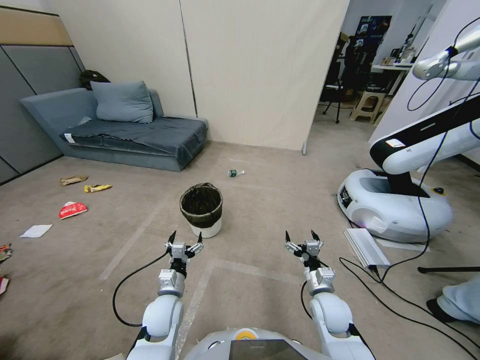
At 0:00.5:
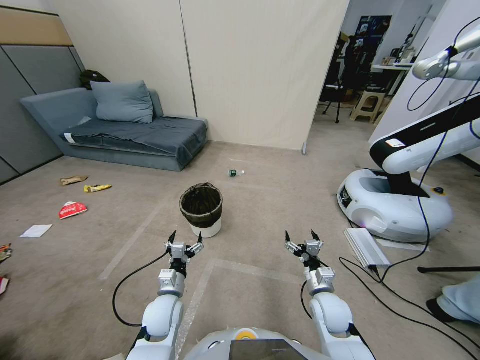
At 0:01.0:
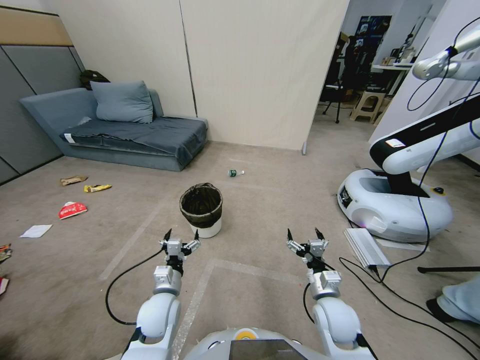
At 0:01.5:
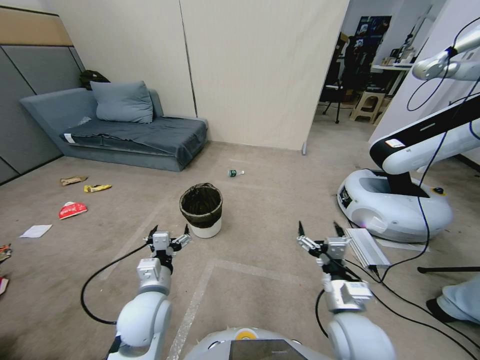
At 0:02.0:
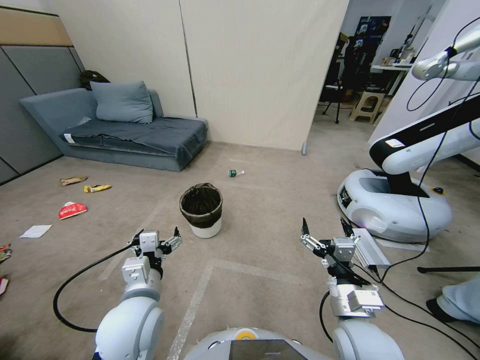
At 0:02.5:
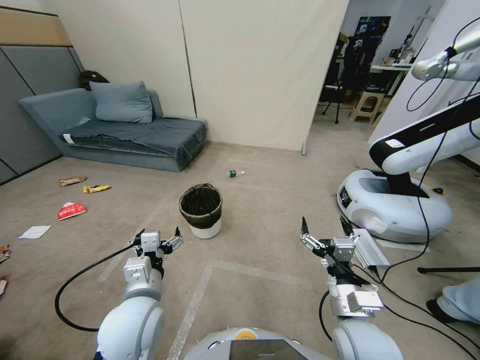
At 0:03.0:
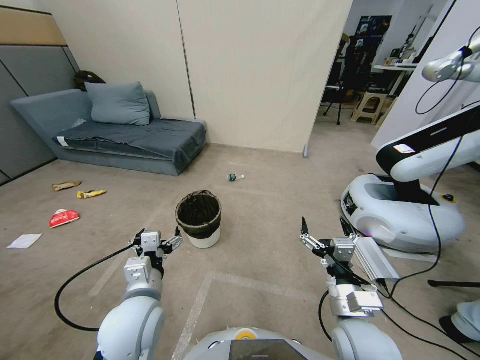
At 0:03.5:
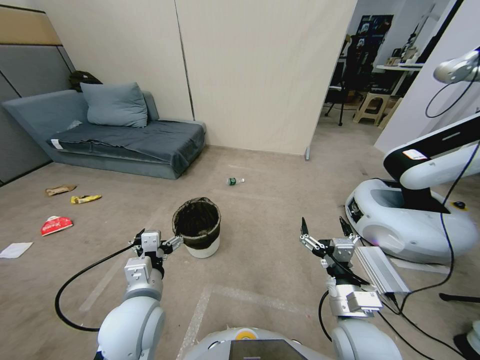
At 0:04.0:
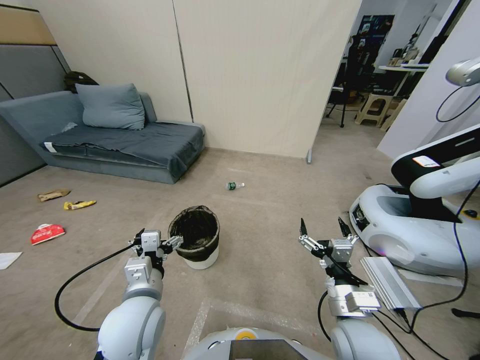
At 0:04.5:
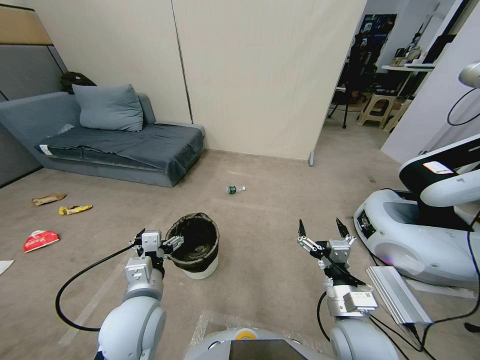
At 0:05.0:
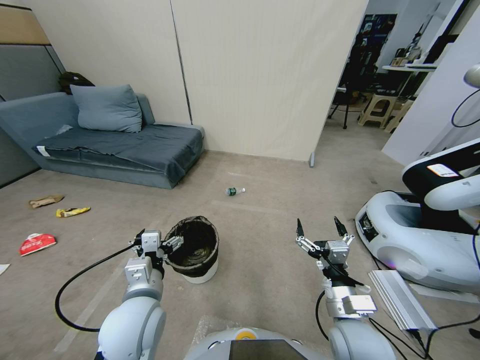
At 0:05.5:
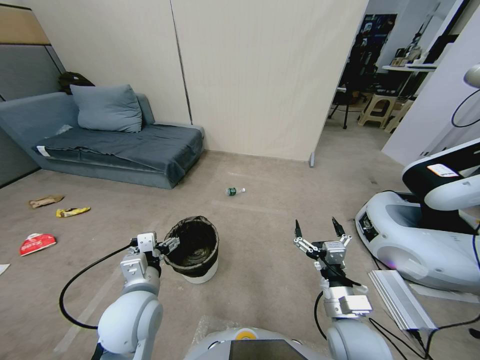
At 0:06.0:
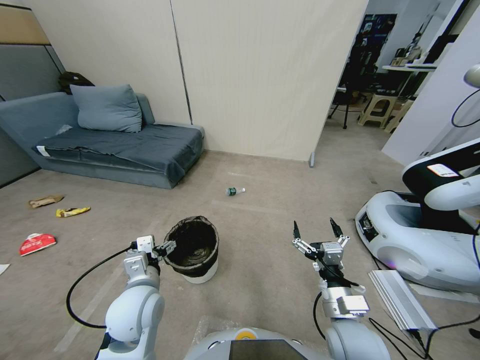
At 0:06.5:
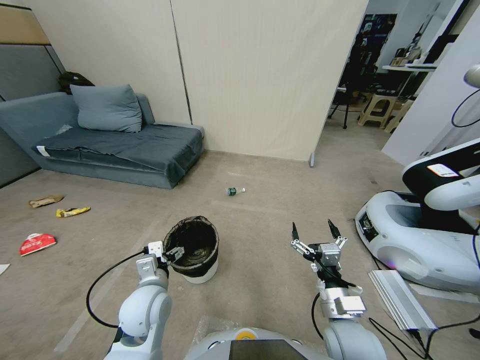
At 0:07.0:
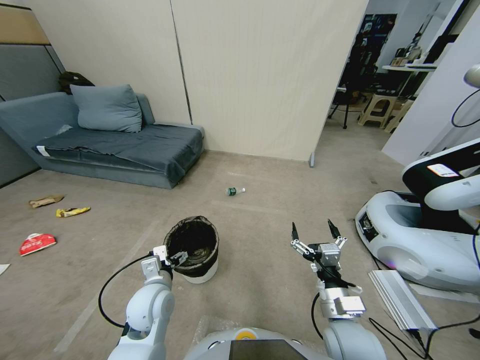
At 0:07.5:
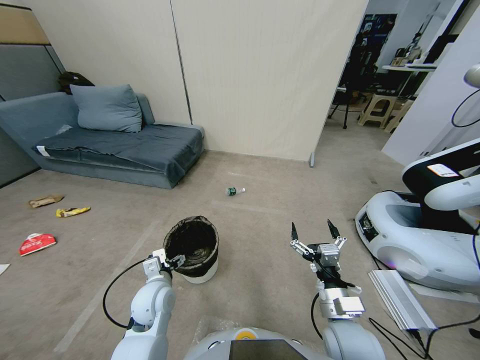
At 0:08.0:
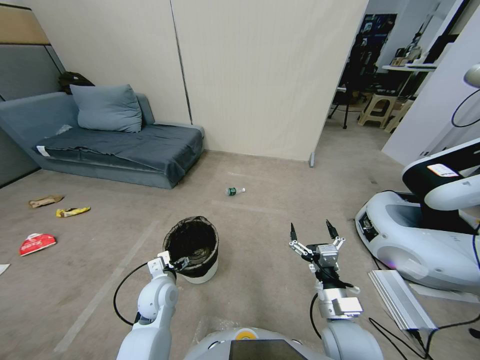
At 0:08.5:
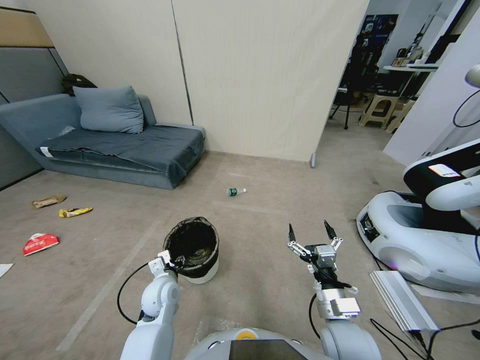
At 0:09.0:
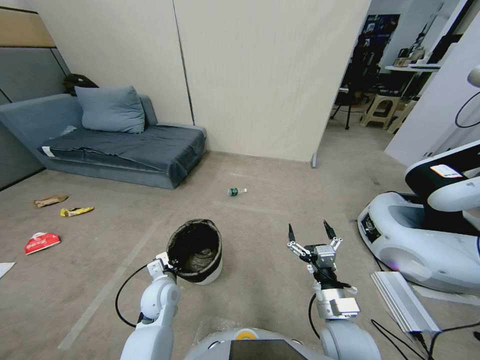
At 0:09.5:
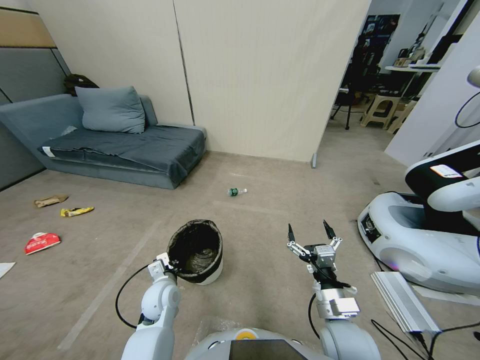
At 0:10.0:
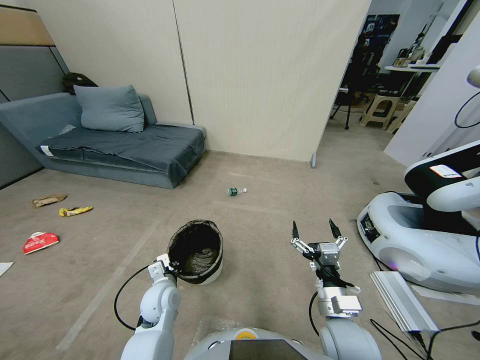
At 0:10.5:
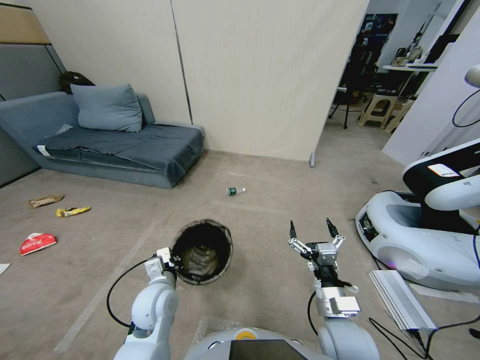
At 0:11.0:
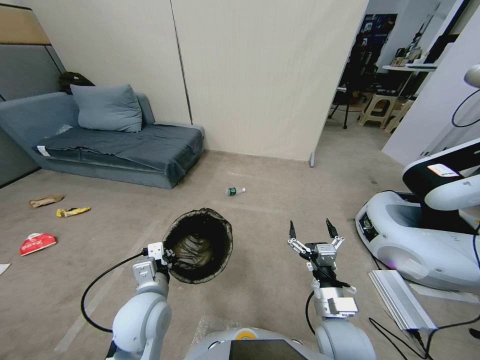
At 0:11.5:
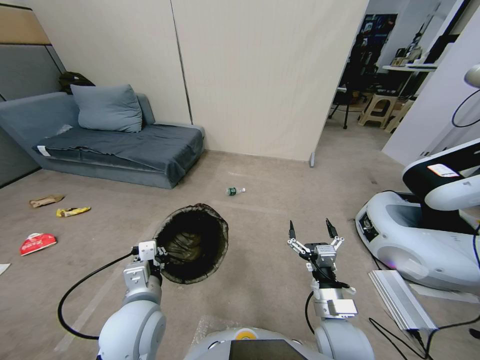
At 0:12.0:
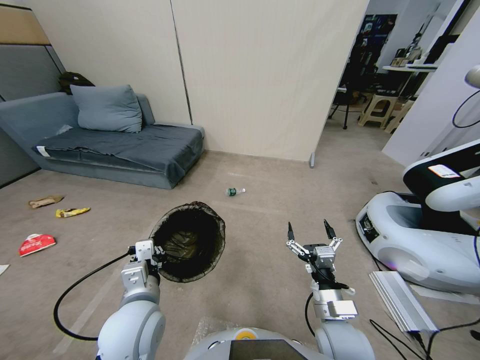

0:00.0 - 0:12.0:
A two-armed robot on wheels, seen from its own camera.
Task of the whole recording: Pick up the trash bin, then pick up the garbage from the floor and place it into the trash bin.
0:04.0 - 0:06.0: The left gripper shifts by roughly 5 cm.
0:06.0 - 0:08.0: The left gripper heads downward, covering approximately 10 cm.
0:08.0 - 0:10.0: The left gripper closes.
0:10.0 - 0:12.0: The left gripper travels upward and backward by some 15 cm.

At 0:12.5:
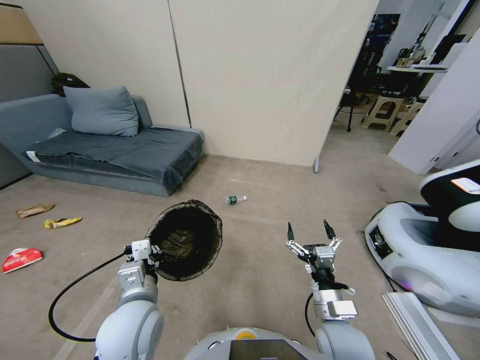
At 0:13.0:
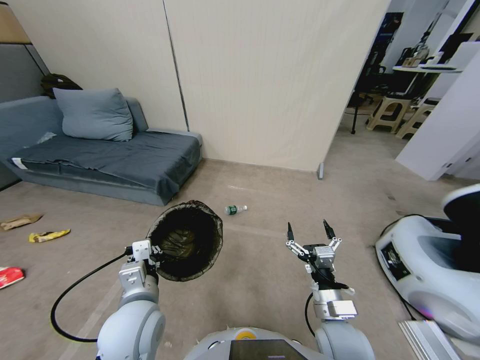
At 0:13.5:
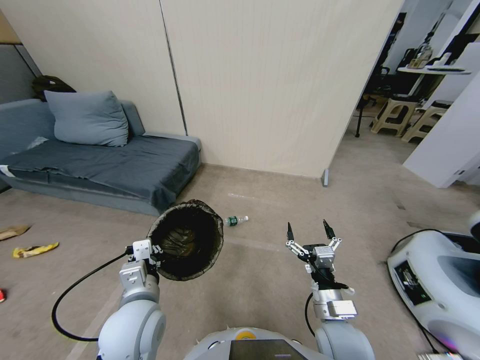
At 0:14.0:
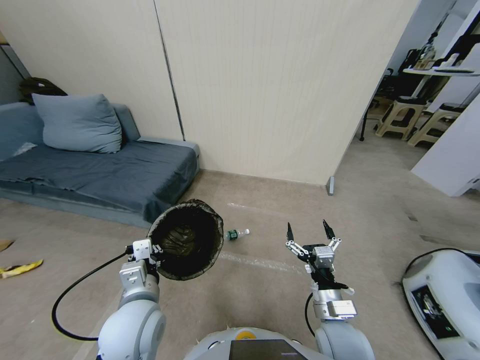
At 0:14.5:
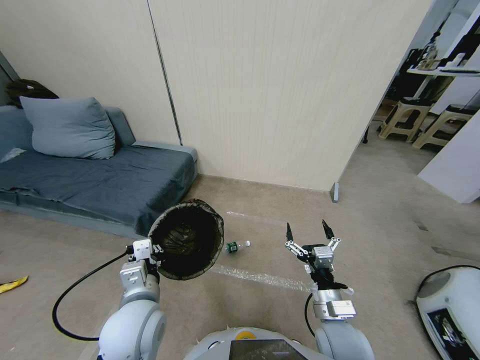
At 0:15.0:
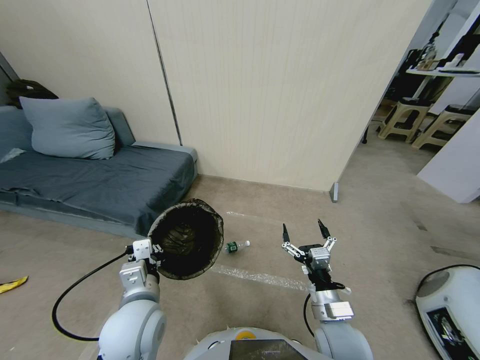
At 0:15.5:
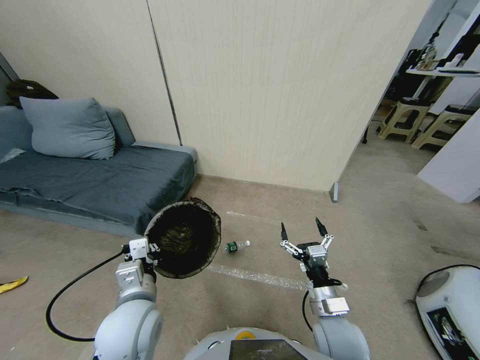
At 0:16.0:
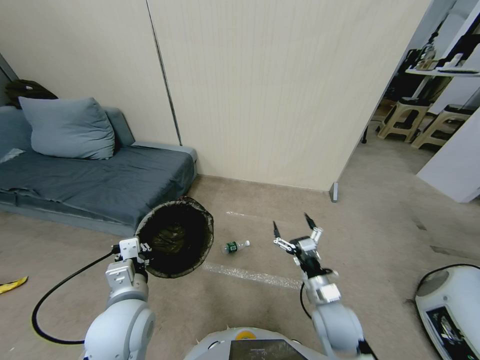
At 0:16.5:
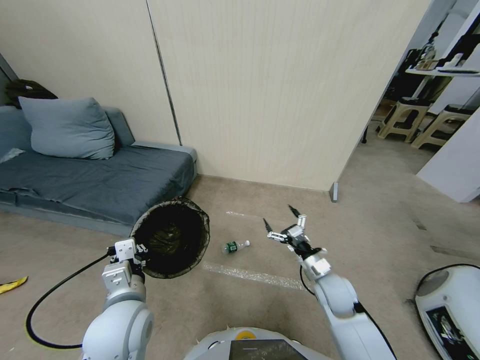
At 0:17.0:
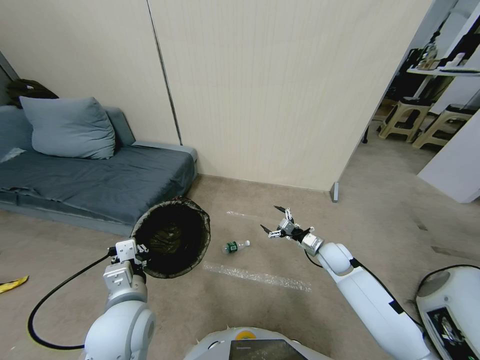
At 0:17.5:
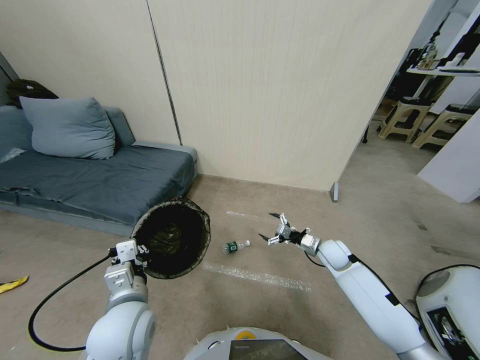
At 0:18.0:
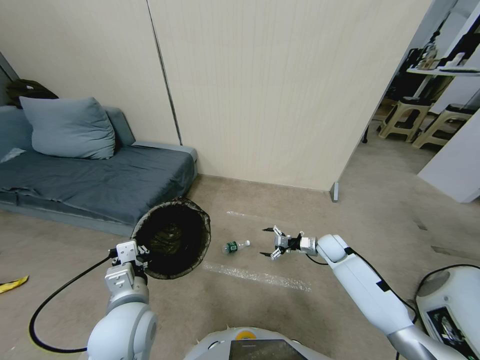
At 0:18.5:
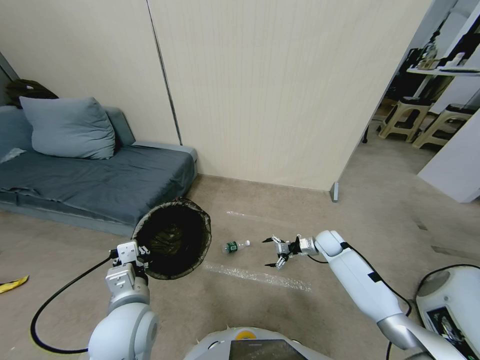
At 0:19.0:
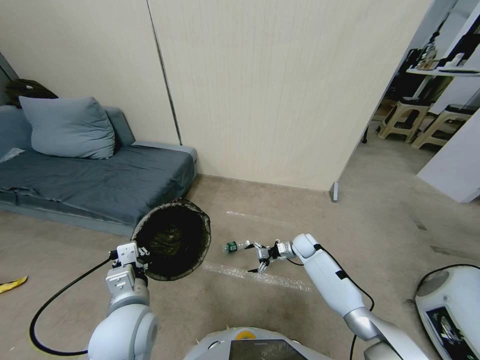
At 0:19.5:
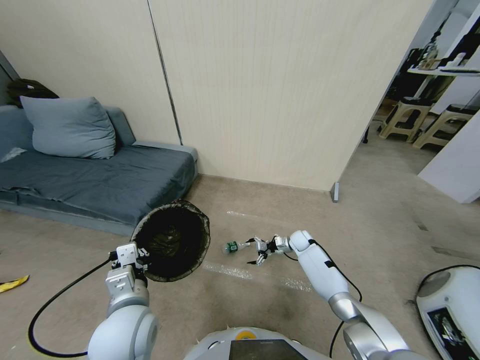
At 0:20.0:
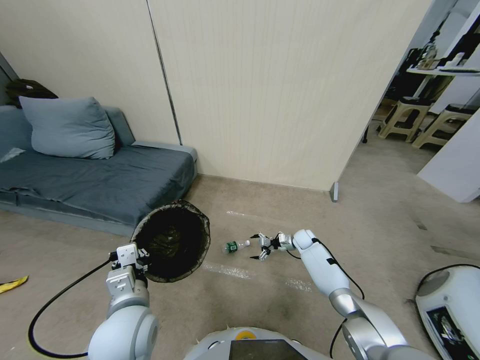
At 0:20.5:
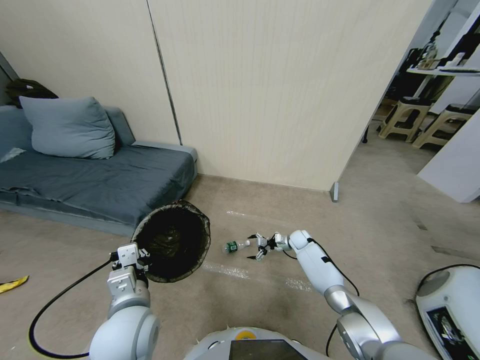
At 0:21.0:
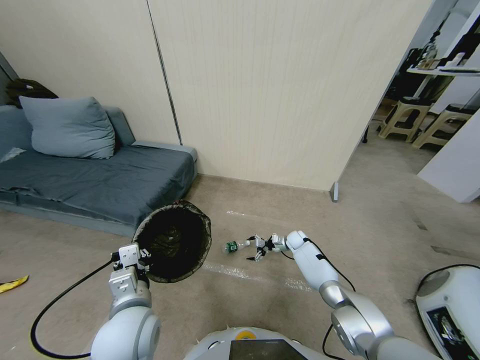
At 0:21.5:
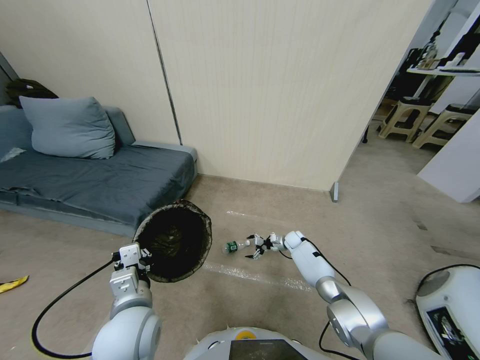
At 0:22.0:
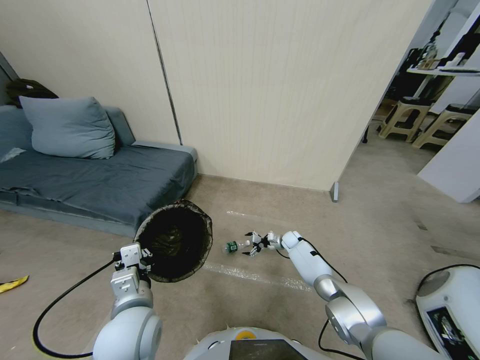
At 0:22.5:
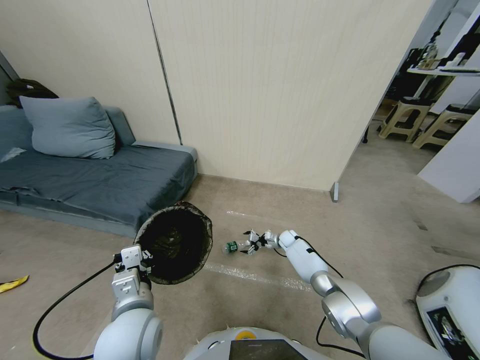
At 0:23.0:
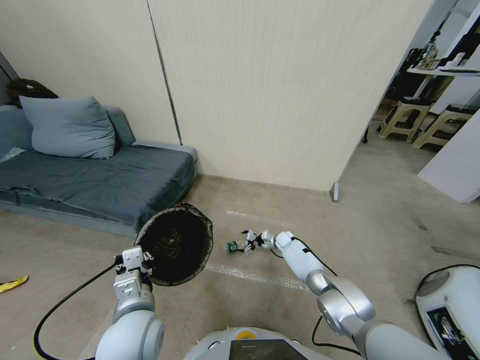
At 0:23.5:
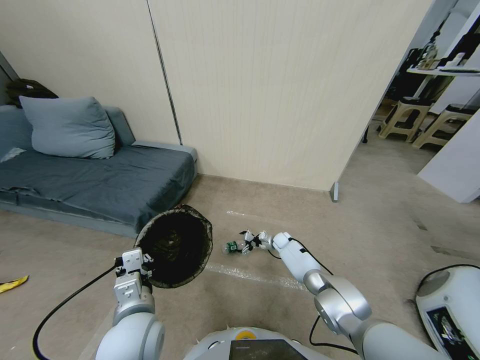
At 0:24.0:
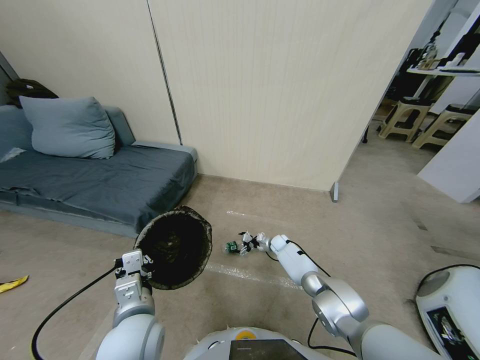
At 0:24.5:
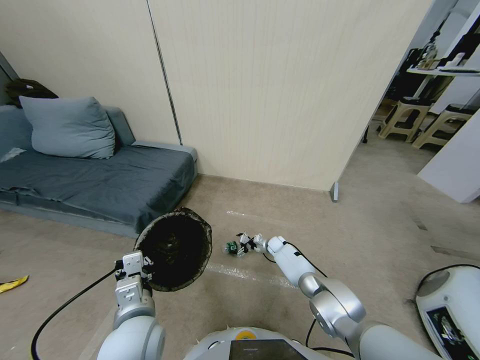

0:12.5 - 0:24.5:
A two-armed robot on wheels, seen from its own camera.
Task of the whole recording: Pick up the trash bin, then pick up the garbage from the floor and place it into the trash bin.
0:14.5 - 0:16.5: The right gripper heads forward and to the right, covering roughly 15 cm.
0:16.5 - 0:18.5: The right gripper shifts approximately 20 cm forward and downward.
0:18.5 - 0:20.5: The right gripper heads downward and forward, covering approximately 10 cm.
0:20.5 - 0:22.5: The right gripper changes place by some 5 cm.
0:22.5 - 0:24.5: The right gripper goes approximately 5 cm to the left.

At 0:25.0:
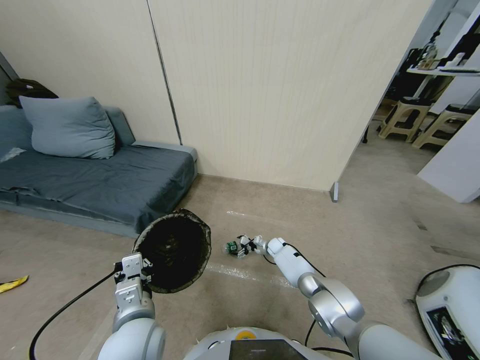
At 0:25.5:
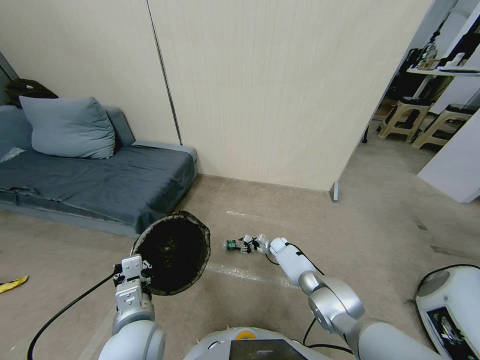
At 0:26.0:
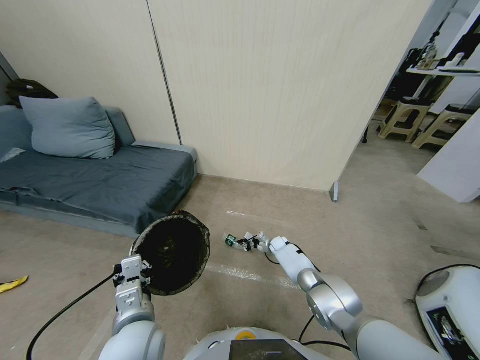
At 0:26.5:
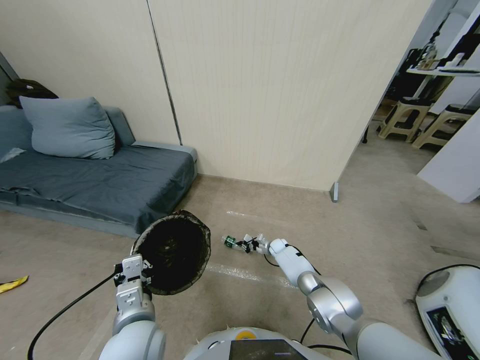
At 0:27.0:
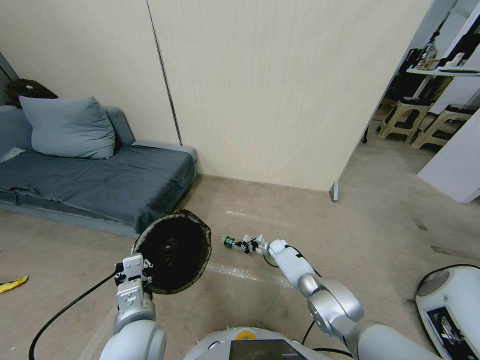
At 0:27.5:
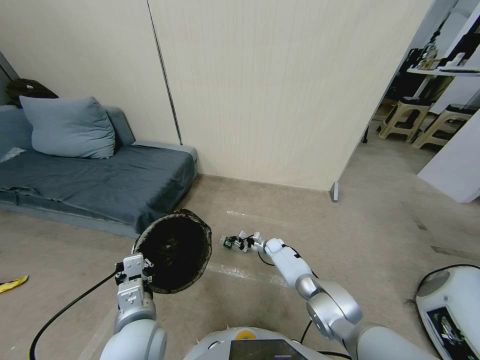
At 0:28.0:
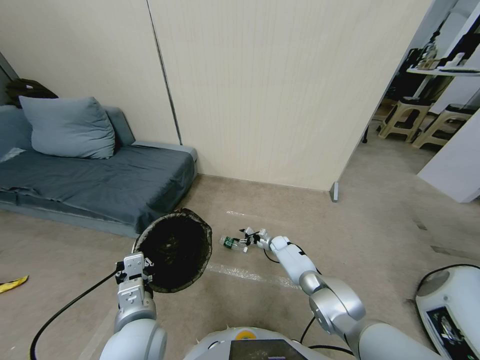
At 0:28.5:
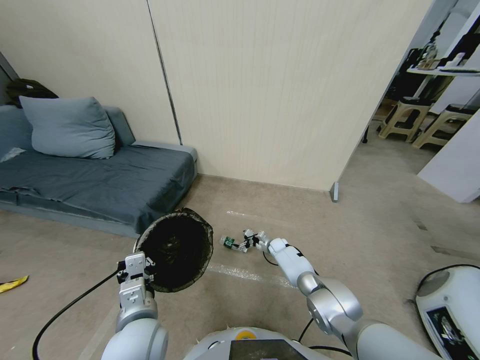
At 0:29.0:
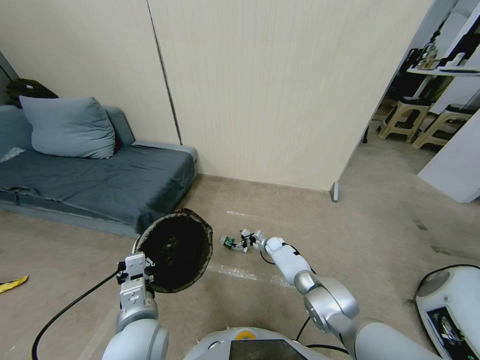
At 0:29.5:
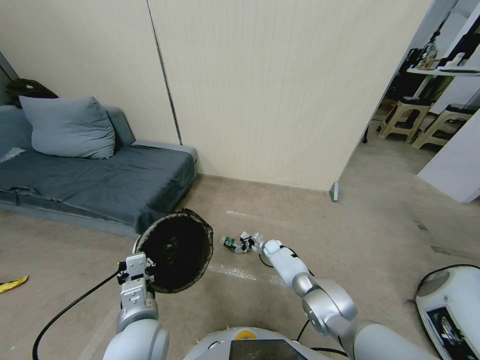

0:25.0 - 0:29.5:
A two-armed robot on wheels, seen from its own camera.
Task of the whole recording: Pick up the trash bin, then pick up the garbage from the floor and place it into the trash bin.
0:27.0 - 0:29.5: The right gripper opens.
